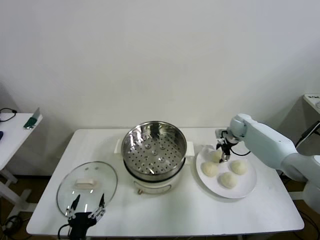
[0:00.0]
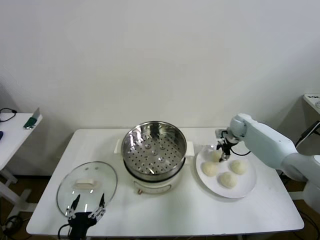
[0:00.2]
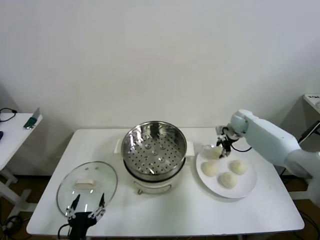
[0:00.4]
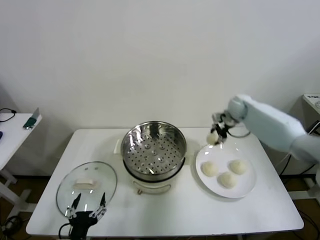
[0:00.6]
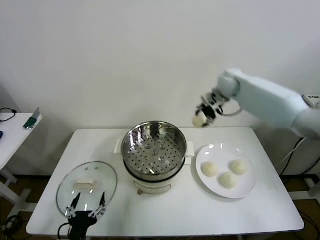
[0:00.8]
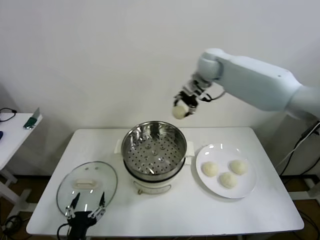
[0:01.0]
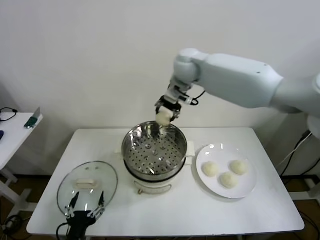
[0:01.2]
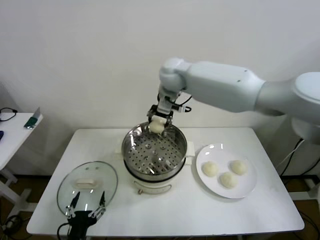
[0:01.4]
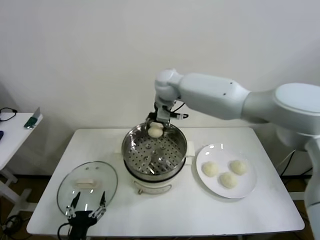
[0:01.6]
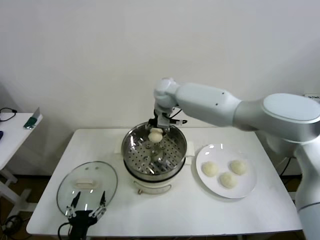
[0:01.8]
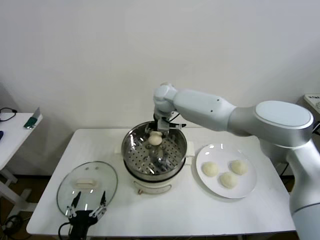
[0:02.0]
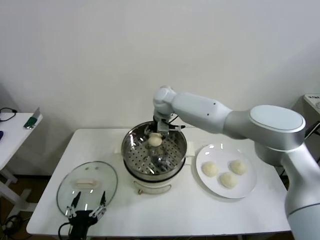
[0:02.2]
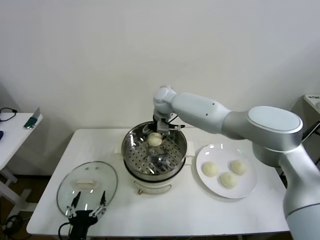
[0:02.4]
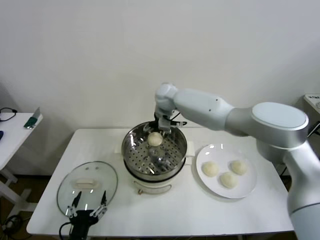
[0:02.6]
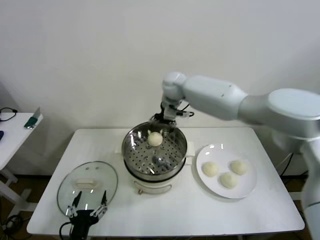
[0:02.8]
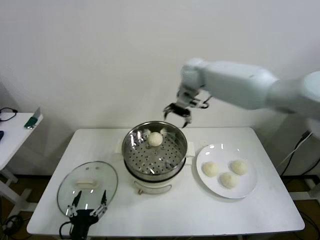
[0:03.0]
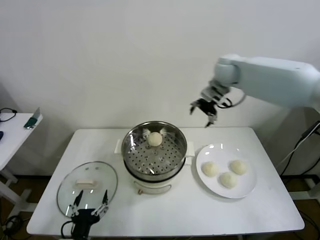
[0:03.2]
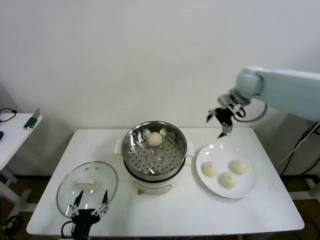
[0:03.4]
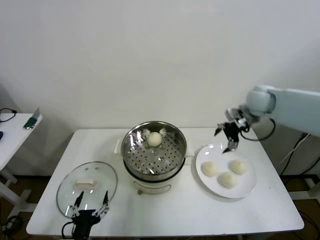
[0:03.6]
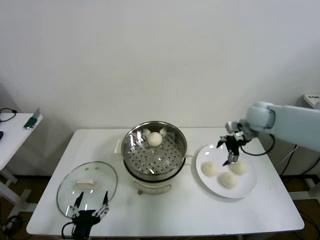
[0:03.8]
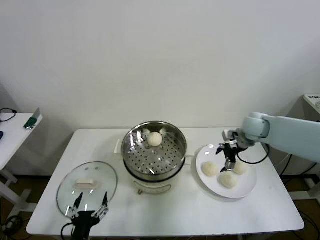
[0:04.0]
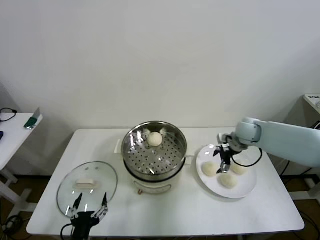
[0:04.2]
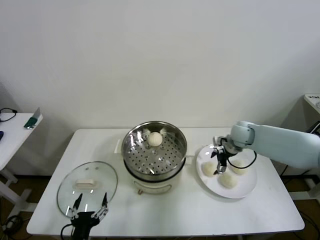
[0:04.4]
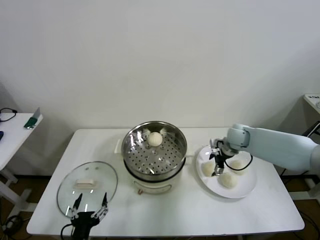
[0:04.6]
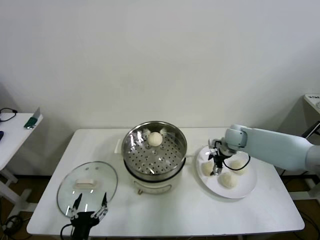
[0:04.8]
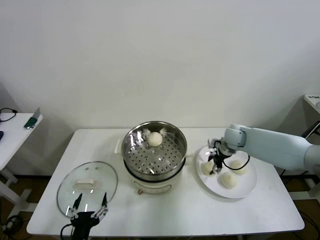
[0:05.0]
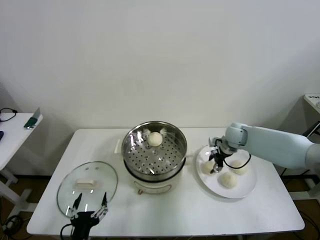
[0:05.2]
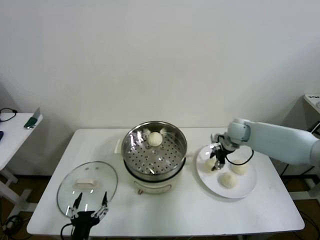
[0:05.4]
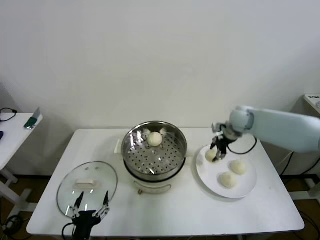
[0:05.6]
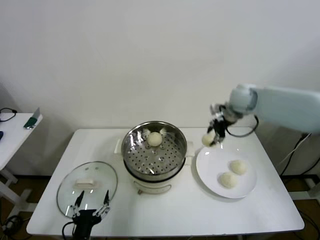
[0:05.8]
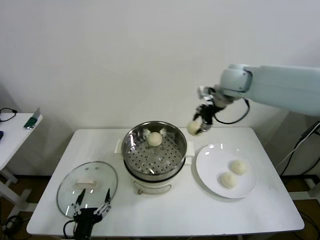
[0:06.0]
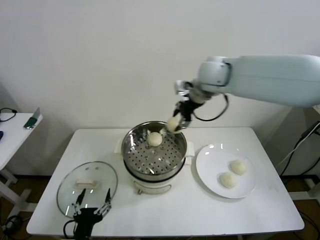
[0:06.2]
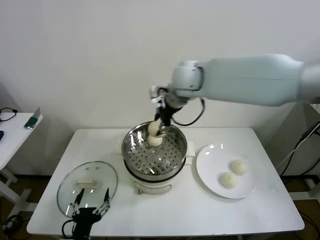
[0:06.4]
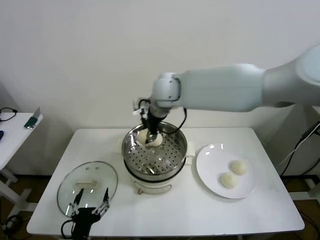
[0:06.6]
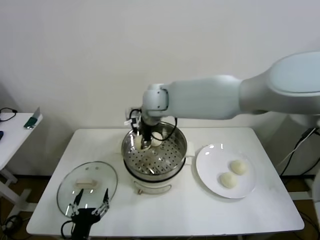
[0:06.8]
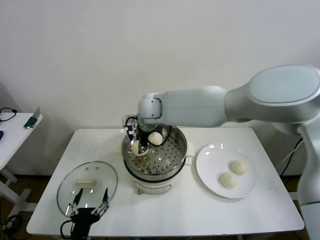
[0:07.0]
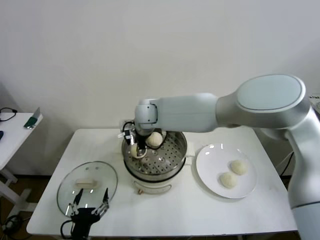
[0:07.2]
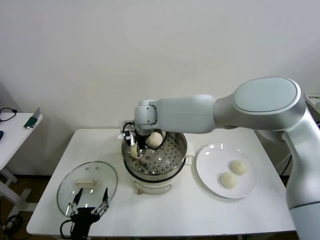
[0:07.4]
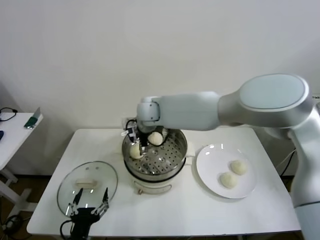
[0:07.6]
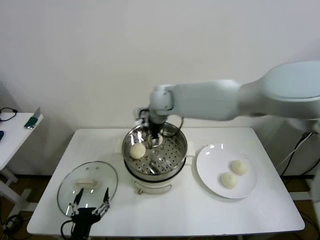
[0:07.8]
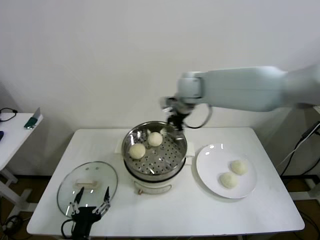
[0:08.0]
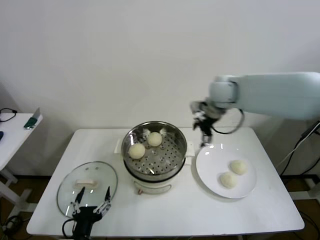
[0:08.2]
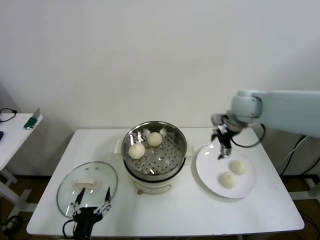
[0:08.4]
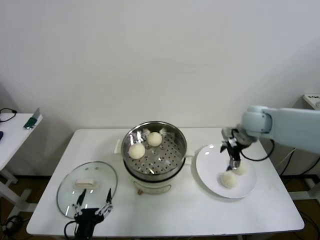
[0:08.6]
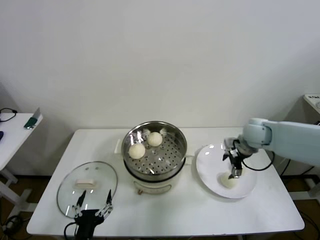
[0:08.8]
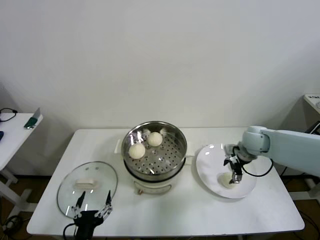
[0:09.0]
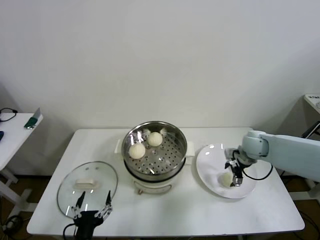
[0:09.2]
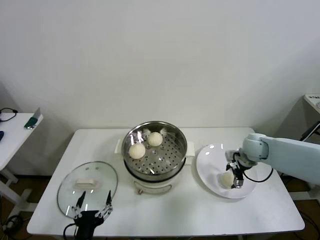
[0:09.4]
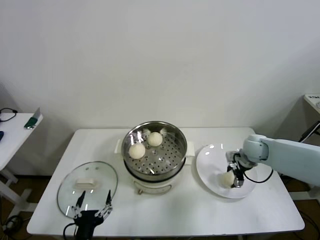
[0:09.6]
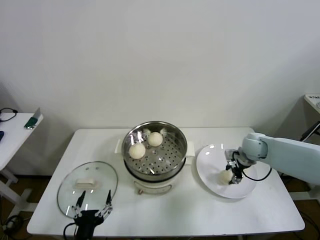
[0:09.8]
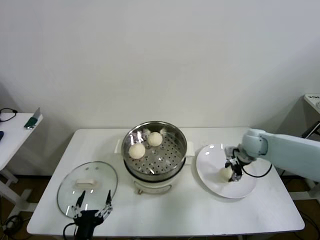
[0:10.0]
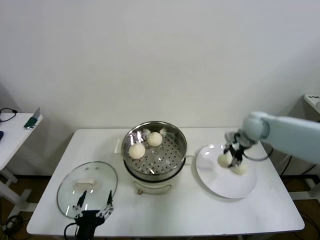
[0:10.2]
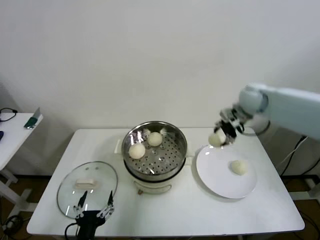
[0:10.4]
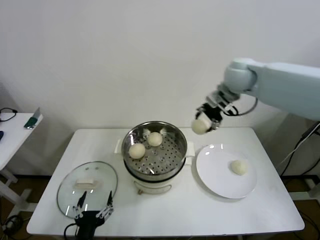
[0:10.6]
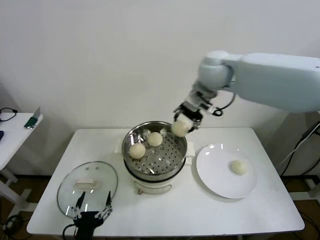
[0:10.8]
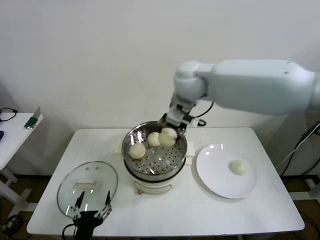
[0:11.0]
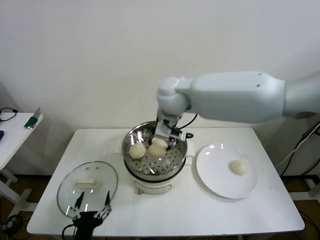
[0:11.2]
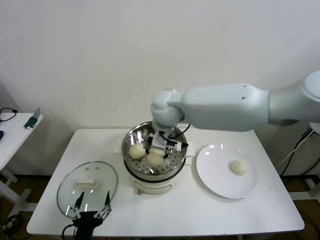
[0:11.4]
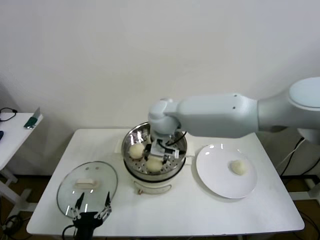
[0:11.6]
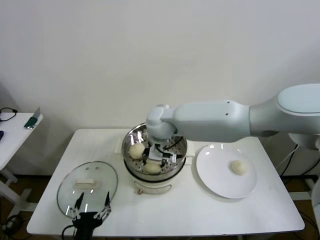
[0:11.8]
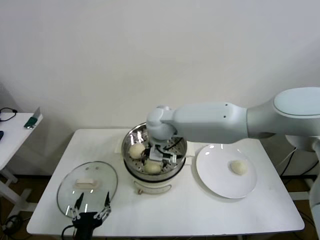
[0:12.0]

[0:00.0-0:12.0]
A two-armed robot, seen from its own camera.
Step, 0:00.2 to 0:02.2: Place the baozi on the steamer with right gripper.
Step, 0:02.4 to 0:04.8: Grasp the baozi in the plate with right gripper.
Step, 0:05.2 to 0:07.4: Place the baozi on the steamer with right gripper.
Step, 0:07.6 to 0:09.6: Grasp the baozi in the plate with right gripper.
0:00.0 to 0:01.6: The right gripper is displaced to the left and upward by about 35 cm.
0:01.6 to 0:03.0: The right gripper is displaced to the right and upward by about 15 cm, and opens.
0:03.0 to 0:04.4: The right gripper goes about 25 cm downward and to the right.
0:04.4 to 0:06.0: The right gripper is displaced upward and to the left by roughly 25 cm, and closes up.
0:06.0 to 0:07.6: The right gripper is displaced to the left and downward by about 25 cm, and opens.
0:07.6 to 0:09.0: The right gripper travels to the right by about 35 cm.
0:09.0 to 0:10.4: The right gripper heads upward, covering roughly 15 cm, and closes.
0:10.4 to 0:12.0: The right gripper moves to the left, some 30 cm, and opens up.

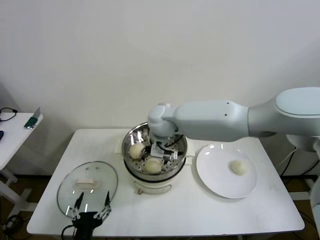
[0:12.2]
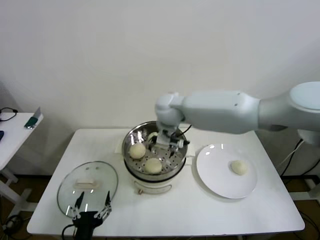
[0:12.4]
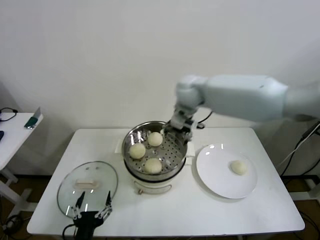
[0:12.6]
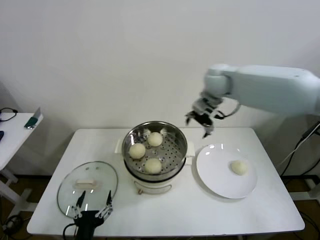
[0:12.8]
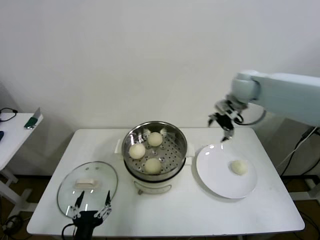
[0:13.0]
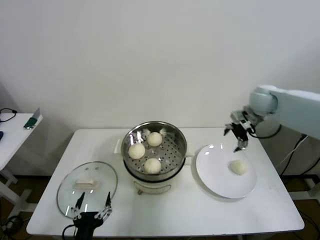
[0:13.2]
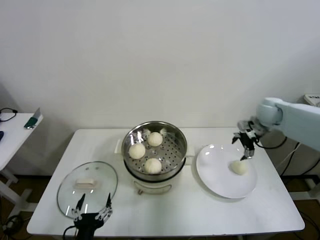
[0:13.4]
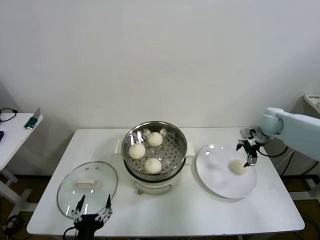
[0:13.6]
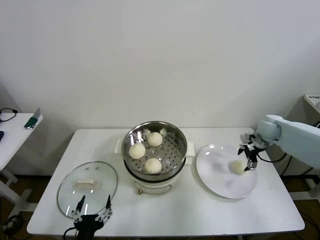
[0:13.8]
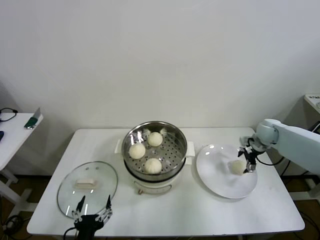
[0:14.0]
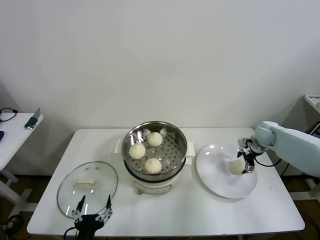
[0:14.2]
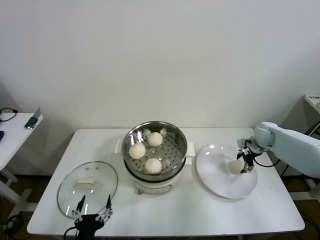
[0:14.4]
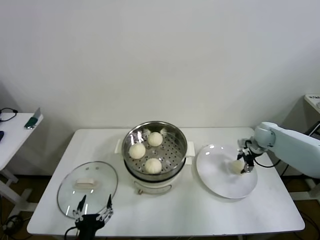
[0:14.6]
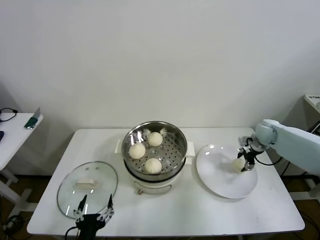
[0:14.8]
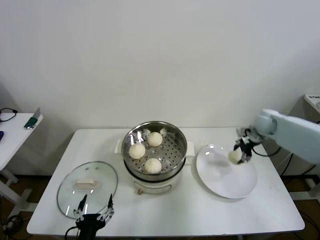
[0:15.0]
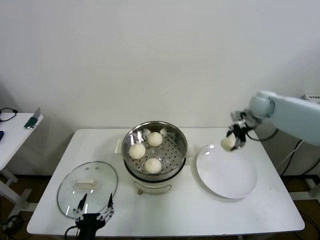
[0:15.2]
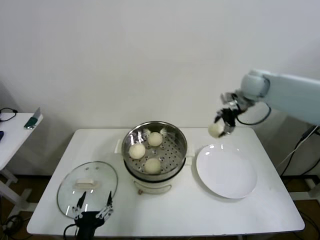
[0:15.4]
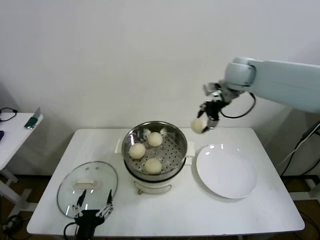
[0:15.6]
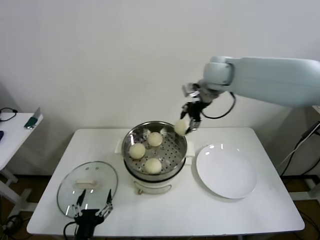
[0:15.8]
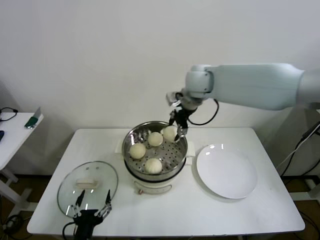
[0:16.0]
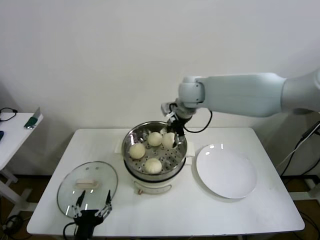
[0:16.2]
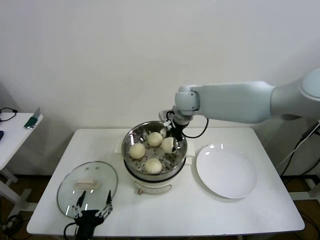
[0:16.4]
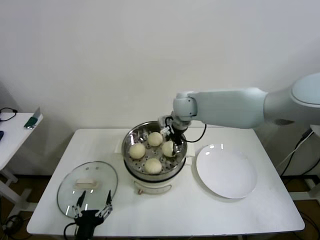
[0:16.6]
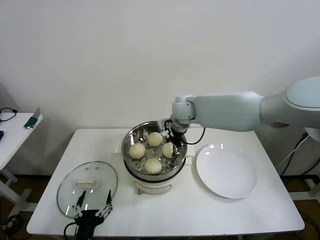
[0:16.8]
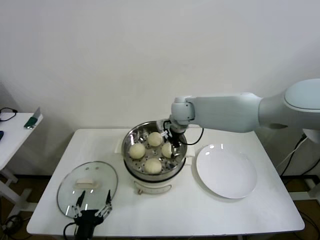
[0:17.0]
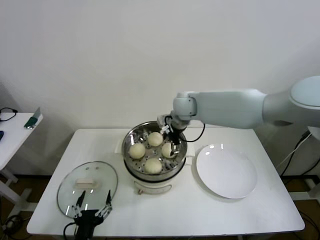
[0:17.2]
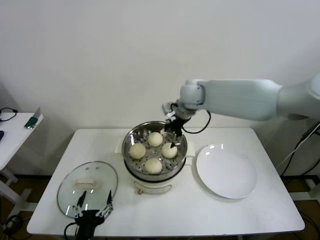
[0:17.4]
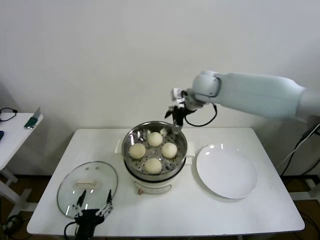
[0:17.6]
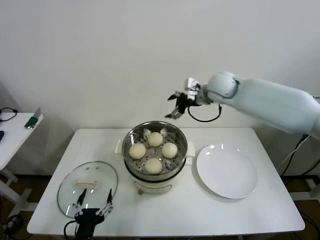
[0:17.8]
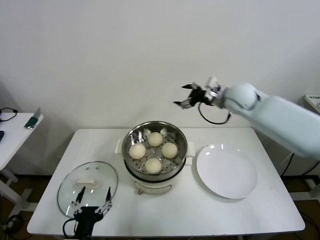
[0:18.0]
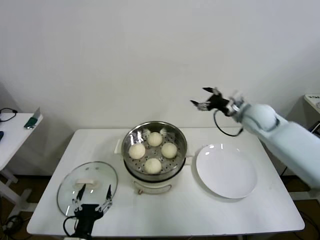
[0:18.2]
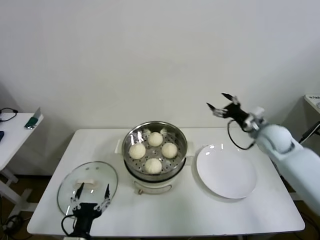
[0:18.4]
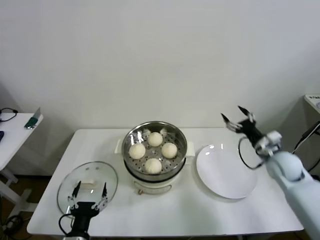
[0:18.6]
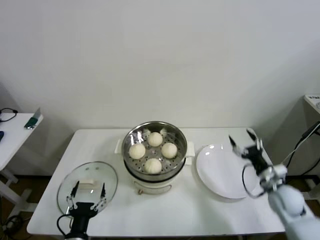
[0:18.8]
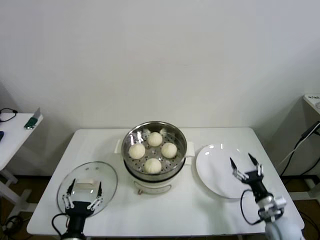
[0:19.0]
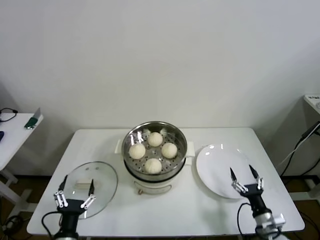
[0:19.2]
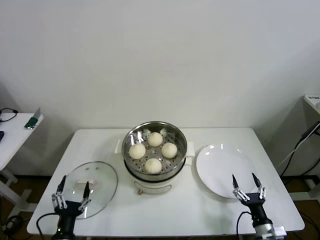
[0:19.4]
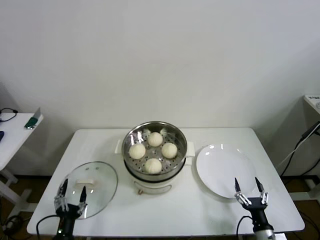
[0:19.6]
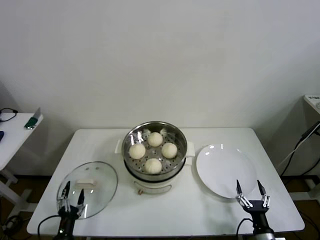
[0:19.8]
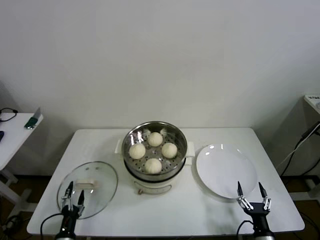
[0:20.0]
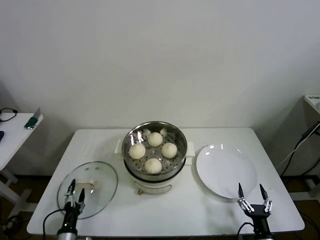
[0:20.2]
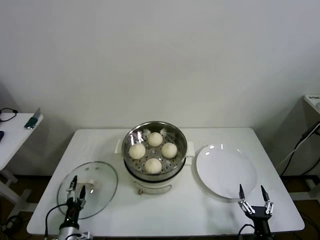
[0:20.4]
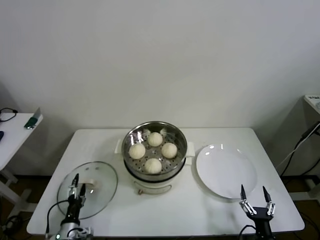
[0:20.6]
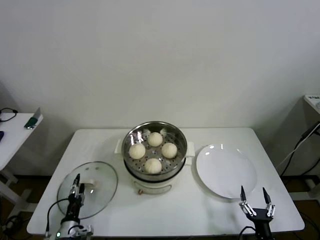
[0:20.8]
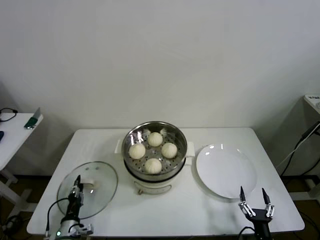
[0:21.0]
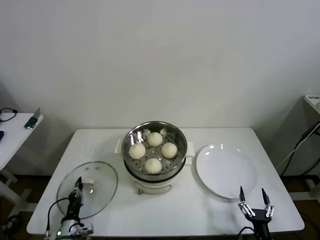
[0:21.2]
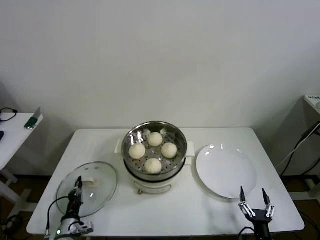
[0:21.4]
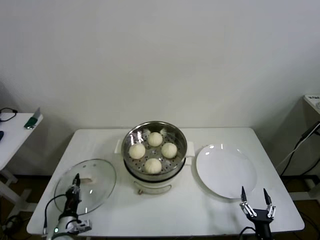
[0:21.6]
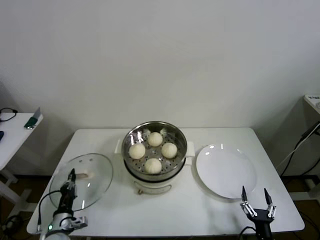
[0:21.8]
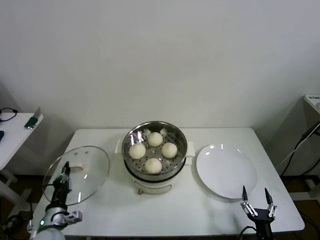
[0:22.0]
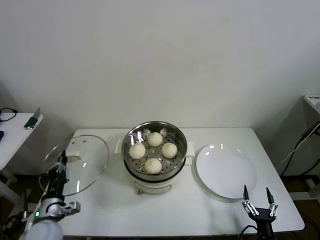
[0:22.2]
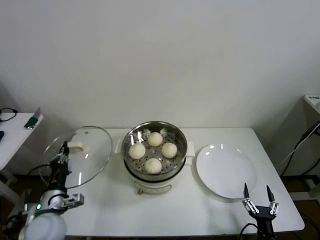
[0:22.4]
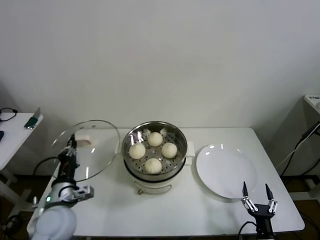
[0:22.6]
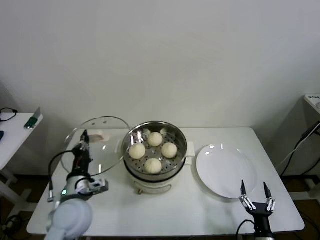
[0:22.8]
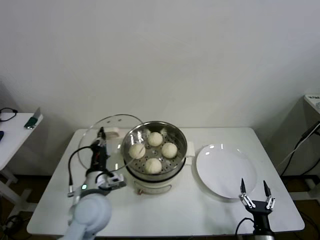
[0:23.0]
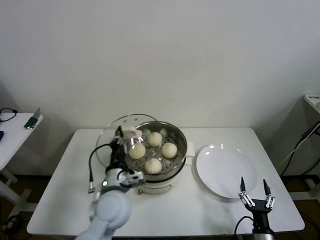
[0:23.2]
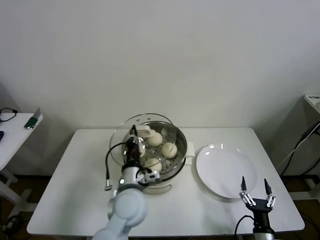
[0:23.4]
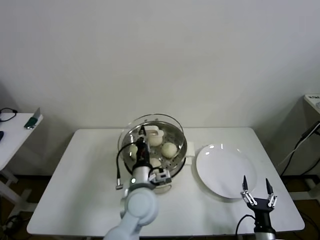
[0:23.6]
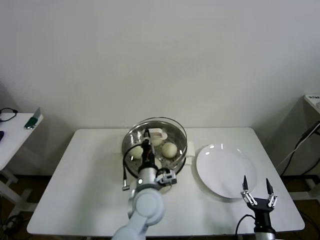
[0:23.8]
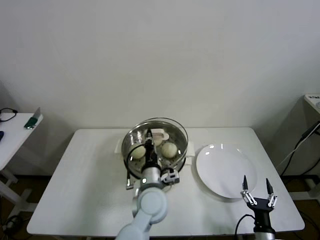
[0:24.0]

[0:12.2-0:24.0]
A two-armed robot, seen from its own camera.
Step, 0:12.4 to 0:14.4: Grasp the baozi in the plate with right gripper.
Step, 0:14.6 to 0:16.8: Place the baozi on the steamer with right gripper.
Step, 0:17.2 to 0:21.2: Grasp the pot lid with left gripper.
0:12.2 to 0:13.6: The right gripper goes some 40 cm to the right.
0:13.6 to 0:15.2: The right gripper shifts some 5 cm upward, and closes.
0:15.2 to 0:16.6: The right gripper heads to the left, covering some 30 cm.
0:16.6 to 0:18.2: The right gripper travels to the right by approximately 25 cm, and opens up.
0:18.2 to 0:19.6: The right gripper travels backward and downward by about 50 cm. Meanwhile the left gripper travels downward and to the left by some 10 cm.
0:19.6 to 0:21.0: The left gripper travels forward and downward by roughly 10 cm, and closes up.
0:21.0 to 0:22.6: The left gripper travels upward by approximately 20 cm, and closes up.
0:22.6 to 0:24.0: The left gripper moves to the right, about 25 cm.
